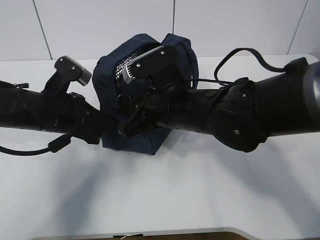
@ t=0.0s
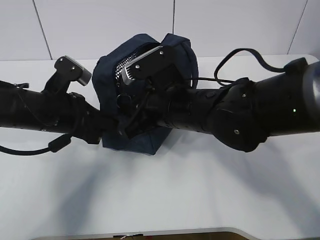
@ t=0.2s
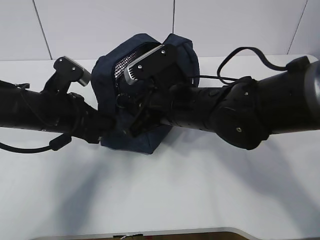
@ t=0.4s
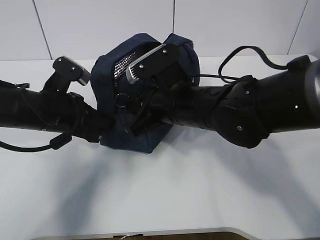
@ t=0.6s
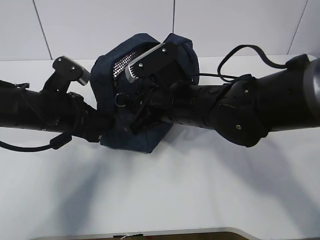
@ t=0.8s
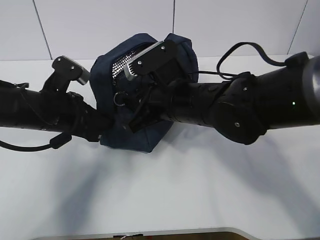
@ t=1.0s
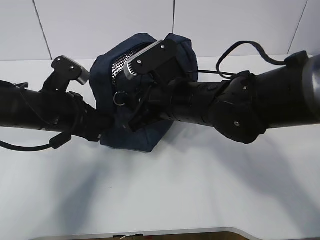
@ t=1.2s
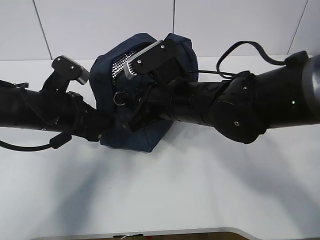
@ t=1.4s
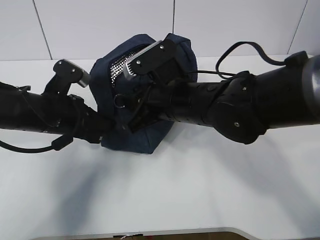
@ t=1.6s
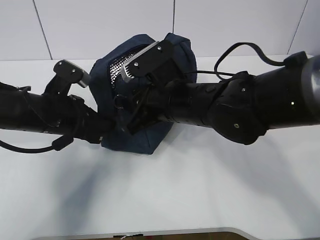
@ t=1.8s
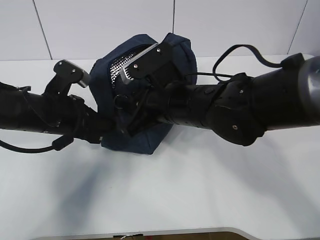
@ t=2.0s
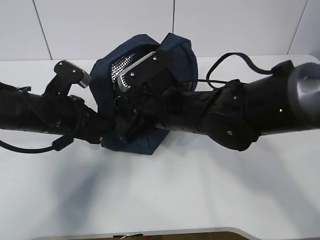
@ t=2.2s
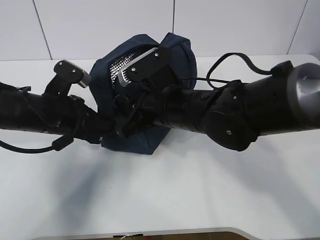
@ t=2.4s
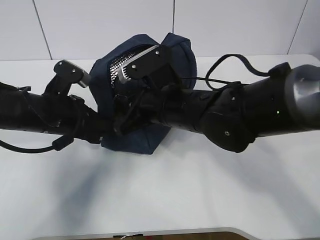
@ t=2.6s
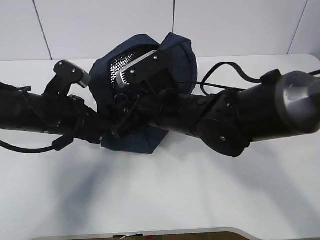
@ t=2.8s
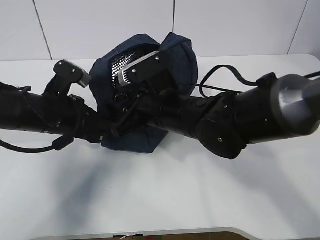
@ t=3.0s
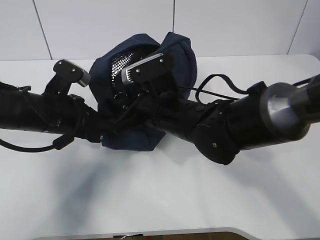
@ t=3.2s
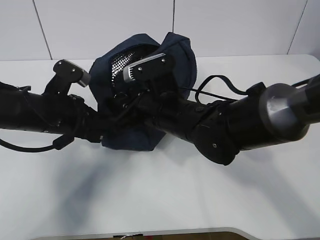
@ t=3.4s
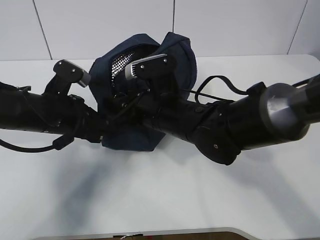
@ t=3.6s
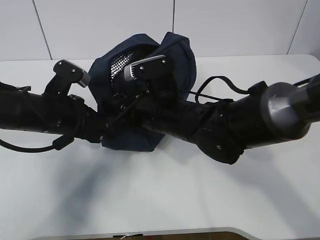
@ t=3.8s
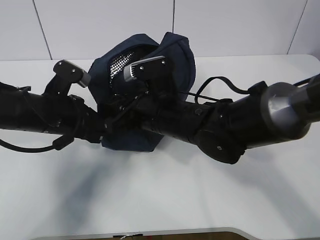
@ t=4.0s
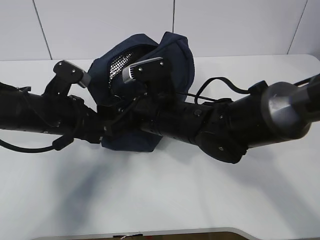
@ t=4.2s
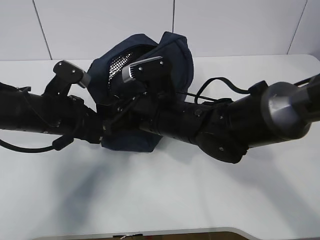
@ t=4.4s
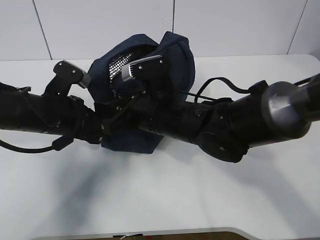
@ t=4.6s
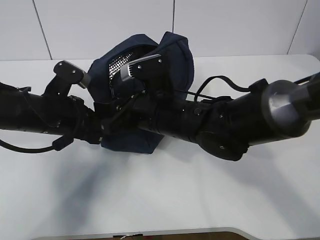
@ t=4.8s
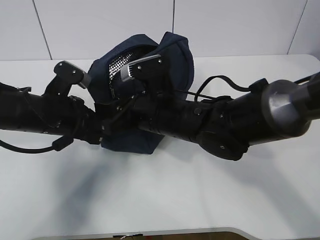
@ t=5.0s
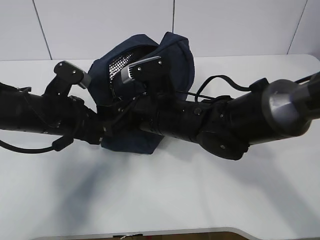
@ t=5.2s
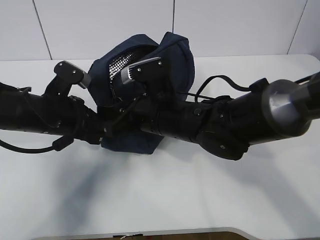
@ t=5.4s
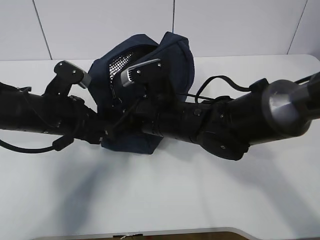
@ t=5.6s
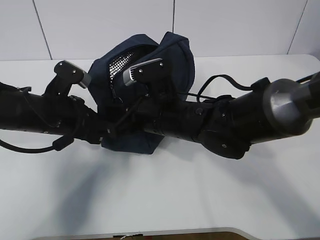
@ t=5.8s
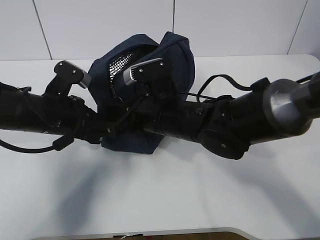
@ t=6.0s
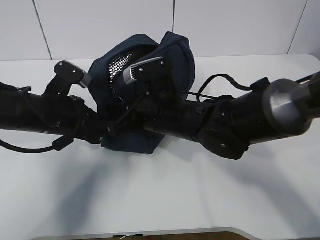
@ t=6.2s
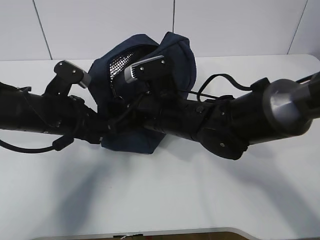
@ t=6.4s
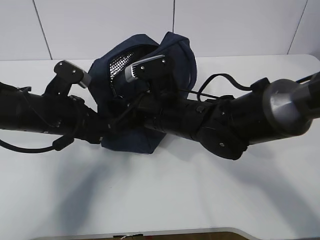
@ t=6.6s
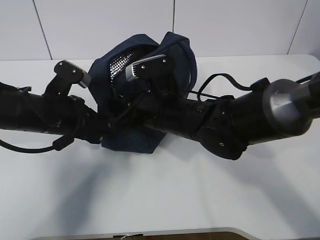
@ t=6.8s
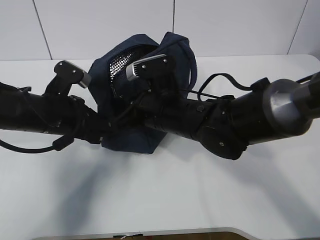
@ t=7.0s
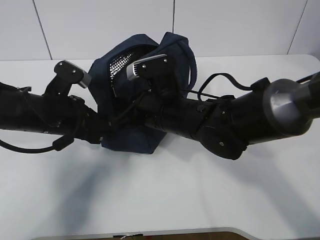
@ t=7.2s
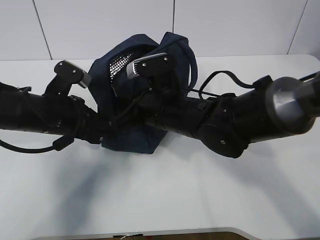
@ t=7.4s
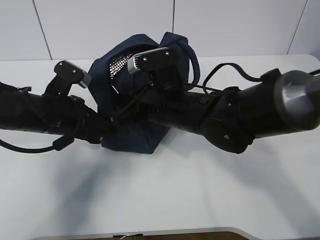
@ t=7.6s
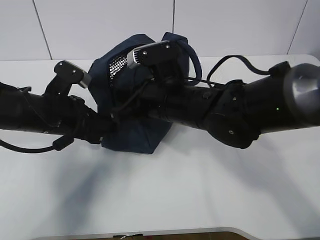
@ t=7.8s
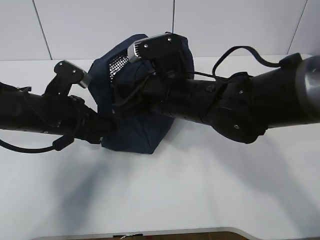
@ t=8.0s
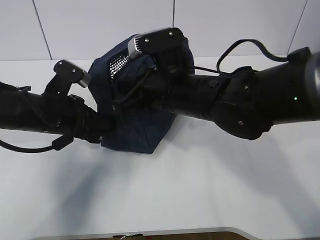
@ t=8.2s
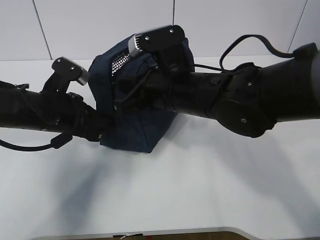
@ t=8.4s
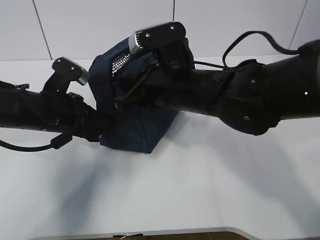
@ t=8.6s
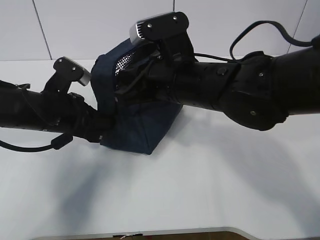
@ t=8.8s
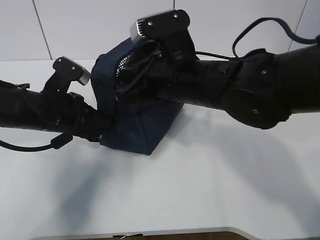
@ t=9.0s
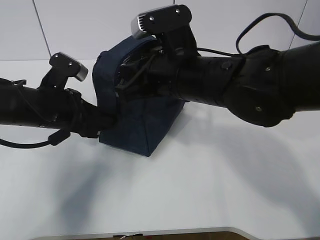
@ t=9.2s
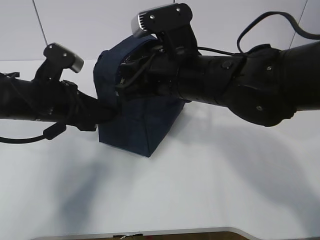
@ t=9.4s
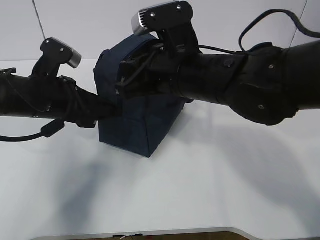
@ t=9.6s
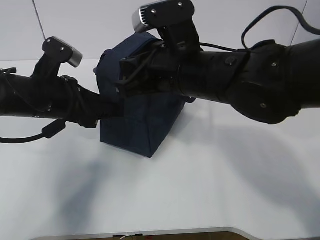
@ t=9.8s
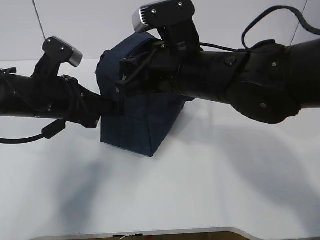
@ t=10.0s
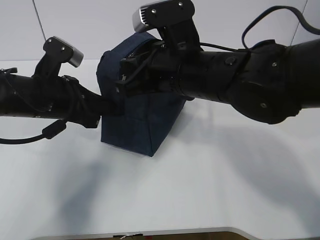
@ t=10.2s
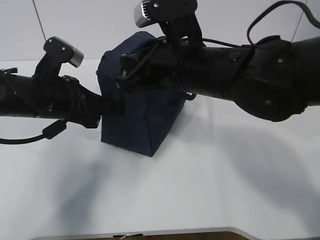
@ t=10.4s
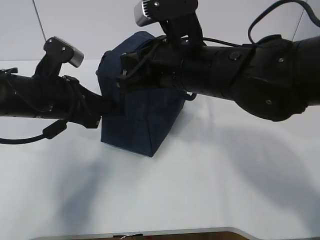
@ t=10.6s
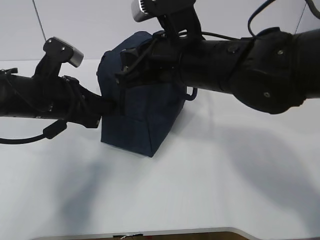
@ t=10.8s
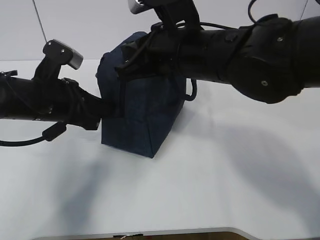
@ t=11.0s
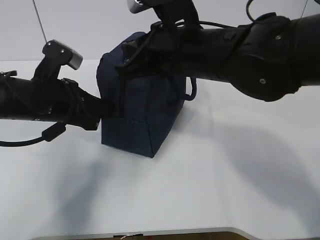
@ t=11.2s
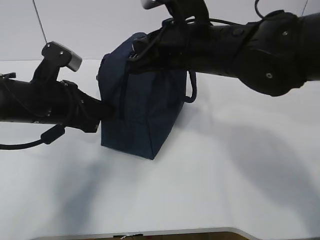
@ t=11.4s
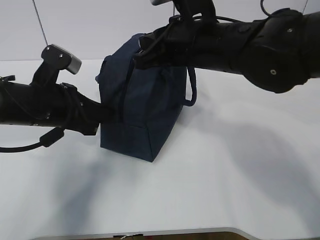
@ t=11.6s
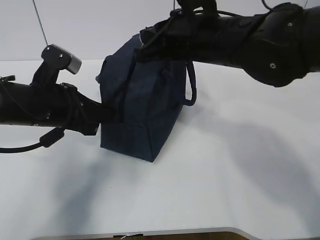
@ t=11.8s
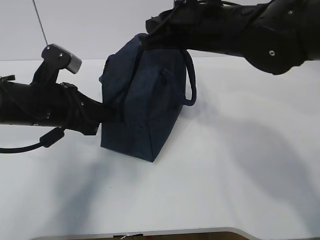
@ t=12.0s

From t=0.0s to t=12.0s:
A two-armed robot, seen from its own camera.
Step, from t=0.0s to t=10.2s: Pull the zipper with your right hand.
From t=0.0s to t=4.4s: The grippers make only small movements.
From t=4.4s to t=6.0s: The right gripper closes its fingers.
From t=6.0s to t=7.6s: The right gripper closes its fingers.
From t=7.6s to t=9.0s: The right gripper is displaced upward by approximately 5 cm.
From t=9.0s to t=10.4s: The left gripper opens, then closes again.
From t=10.4s to t=12.0s: The right gripper changes place by about 5 cm.

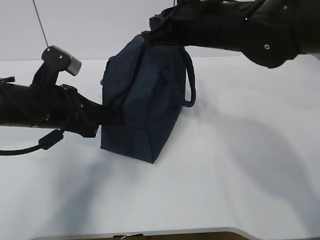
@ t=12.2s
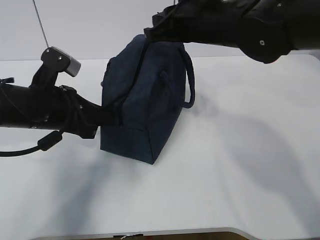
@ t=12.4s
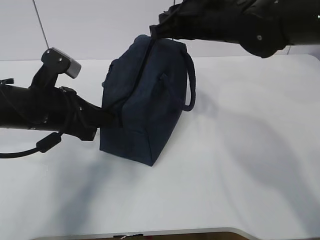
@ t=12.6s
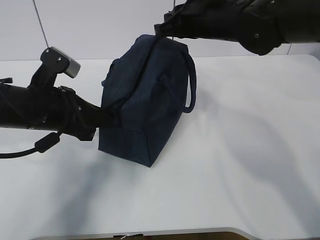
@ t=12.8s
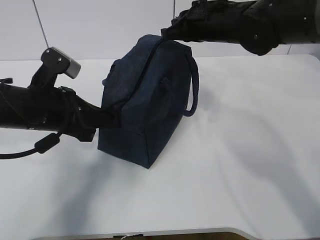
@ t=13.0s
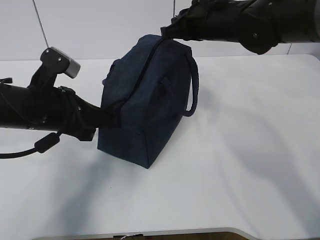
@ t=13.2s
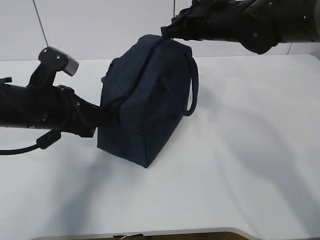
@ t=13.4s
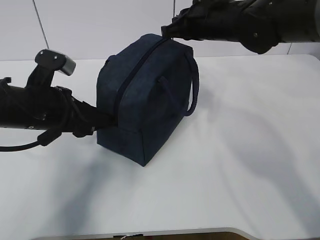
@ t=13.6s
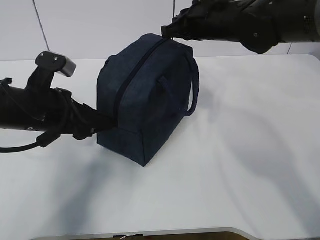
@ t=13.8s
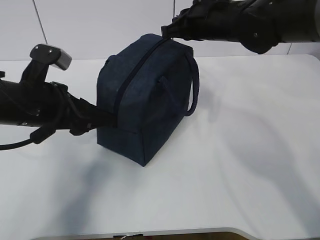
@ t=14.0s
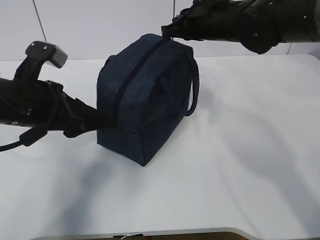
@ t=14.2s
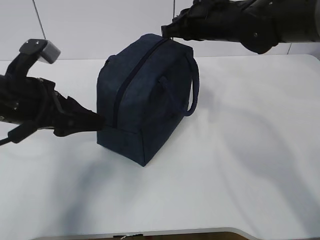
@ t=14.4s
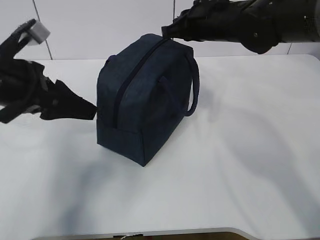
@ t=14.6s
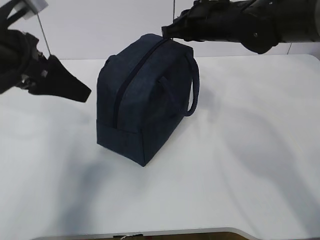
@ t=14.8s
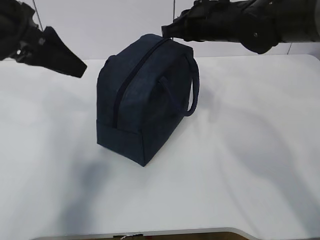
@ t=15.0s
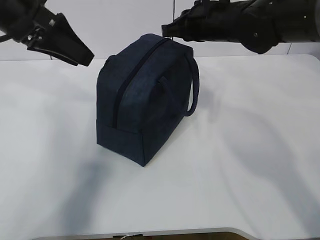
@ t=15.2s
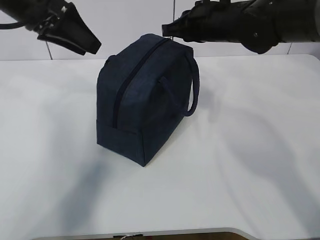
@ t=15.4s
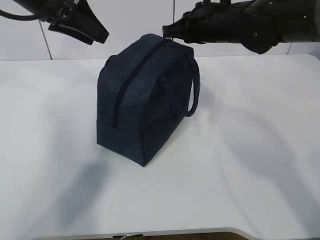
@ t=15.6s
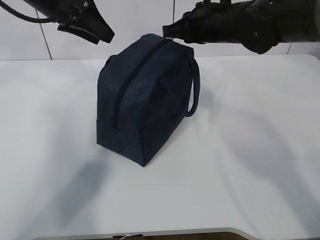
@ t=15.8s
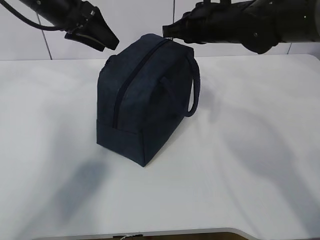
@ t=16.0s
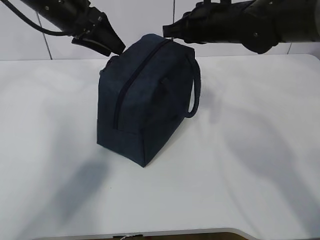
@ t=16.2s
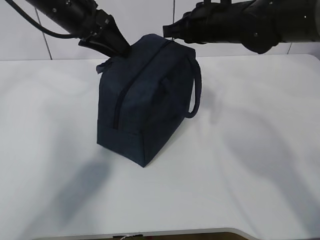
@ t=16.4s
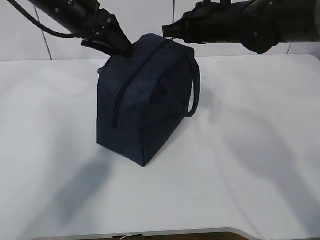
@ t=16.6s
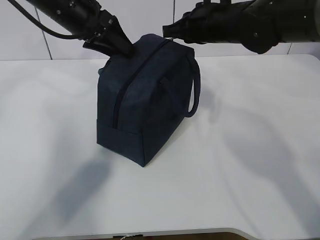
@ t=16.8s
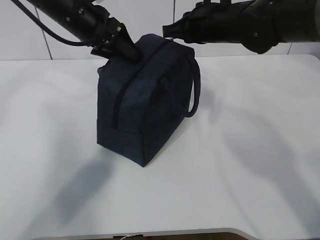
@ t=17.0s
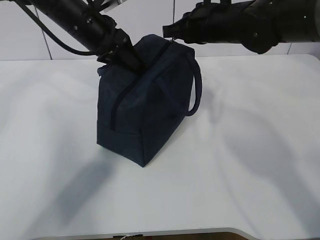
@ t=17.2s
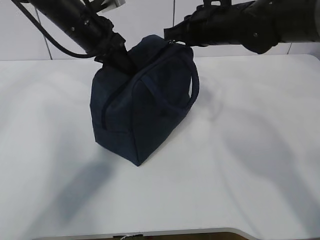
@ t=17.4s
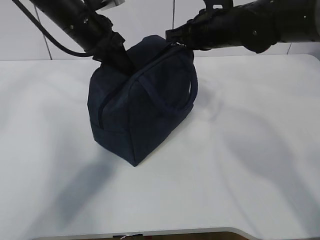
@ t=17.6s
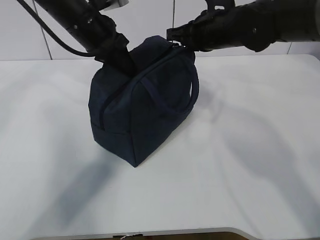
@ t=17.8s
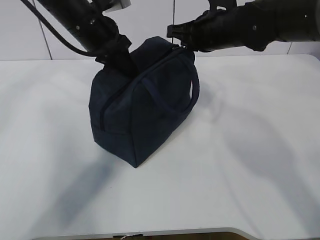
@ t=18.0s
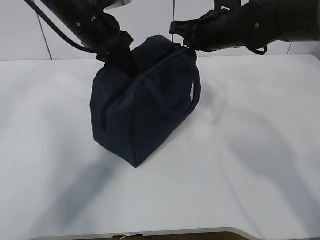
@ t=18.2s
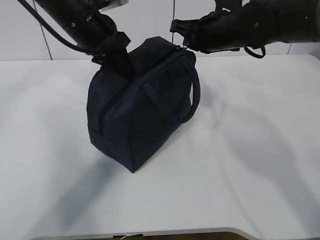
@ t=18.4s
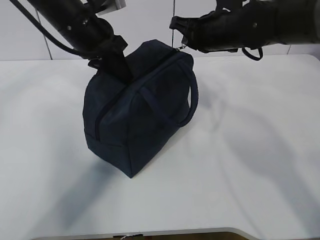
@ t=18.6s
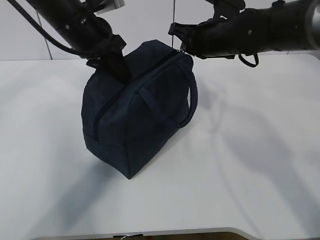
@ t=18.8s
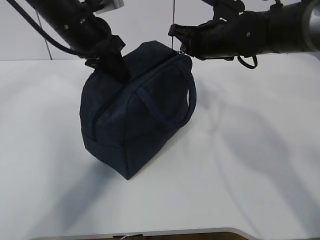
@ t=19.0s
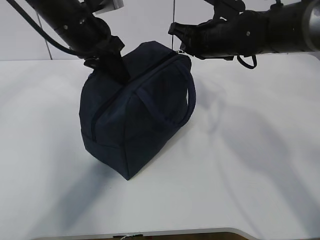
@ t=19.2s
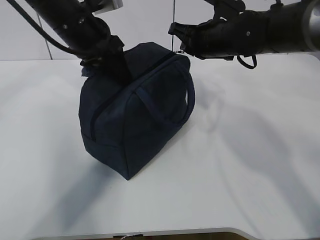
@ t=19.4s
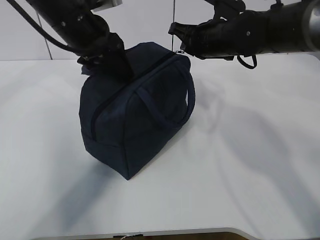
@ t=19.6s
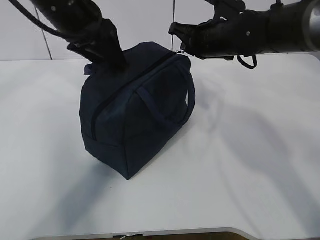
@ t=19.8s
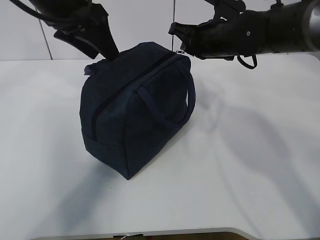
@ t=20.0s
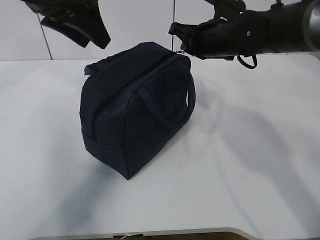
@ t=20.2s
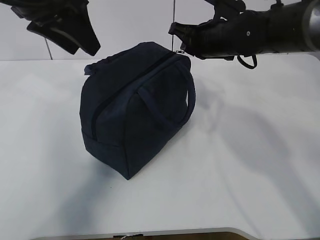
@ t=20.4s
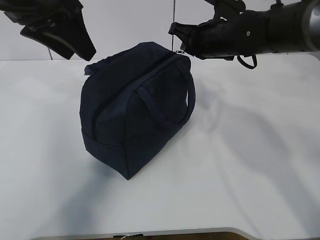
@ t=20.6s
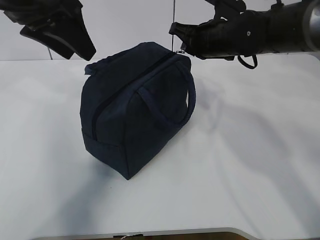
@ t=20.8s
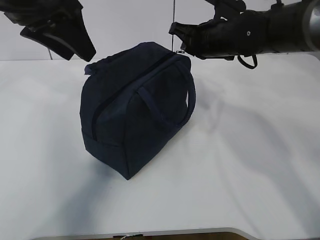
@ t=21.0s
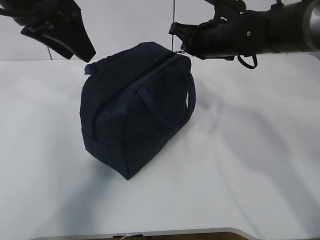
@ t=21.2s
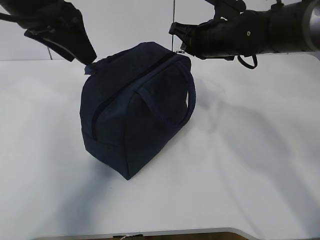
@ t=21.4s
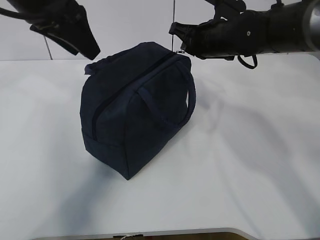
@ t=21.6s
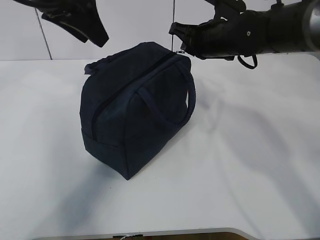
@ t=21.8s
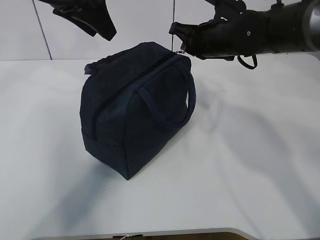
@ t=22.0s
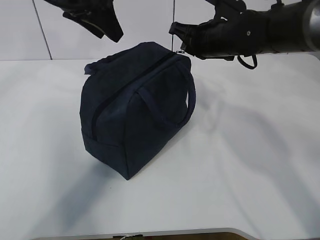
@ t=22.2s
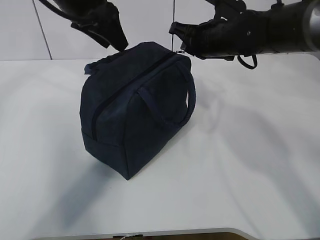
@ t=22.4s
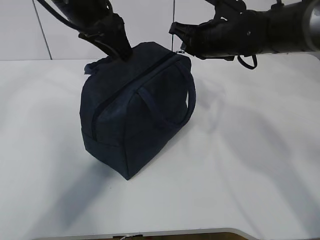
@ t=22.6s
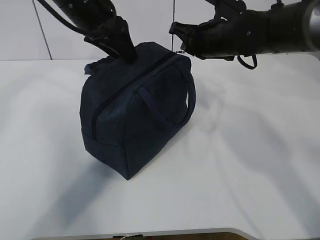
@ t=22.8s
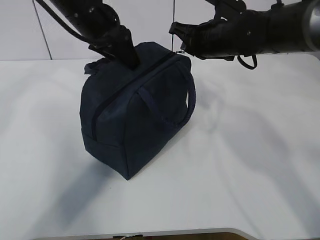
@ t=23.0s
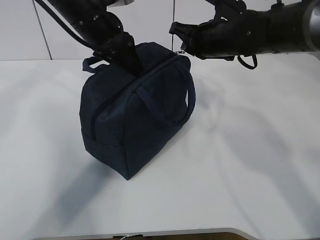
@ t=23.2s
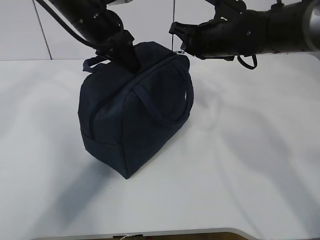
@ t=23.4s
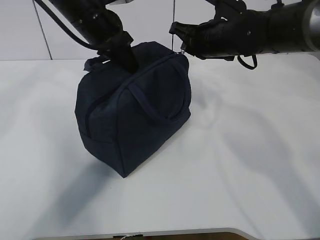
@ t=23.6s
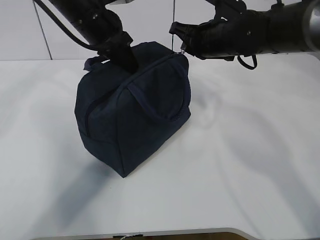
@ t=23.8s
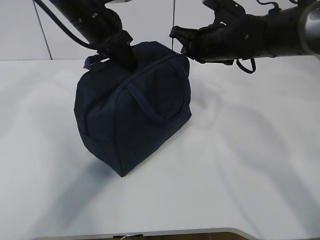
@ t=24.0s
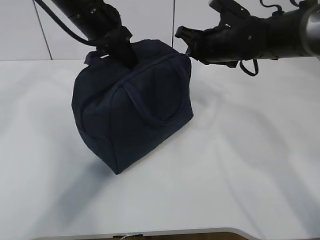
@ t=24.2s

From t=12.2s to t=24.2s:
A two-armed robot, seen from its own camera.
From t=12.2s to t=13.8s: The right gripper goes approximately 5 cm forward. Meanwhile the left gripper opens its fingers.
From t=13.8s to t=15.2s: The left gripper moves upward, roughly 15 cm.
From t=15.2s to t=16.6s: The left gripper travels forward by approximately 10 cm.
From t=16.6s to t=18.2s: The left gripper closes up.
From t=18.2s to t=19.8s: The left gripper ends up about 5 cm from where it was, and opens.
From t=19.8s to t=21.2s: The left gripper is displaced backward and upward by roughly 10 cm.
From t=21.2s to t=22.6s: The left gripper is displaced forward by approximately 10 cm.
From t=22.6s to t=24.2s: The left gripper closes.
